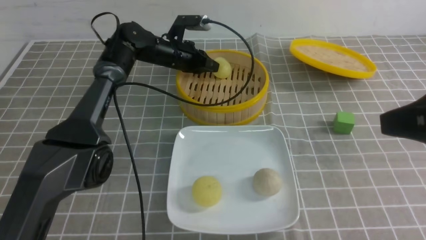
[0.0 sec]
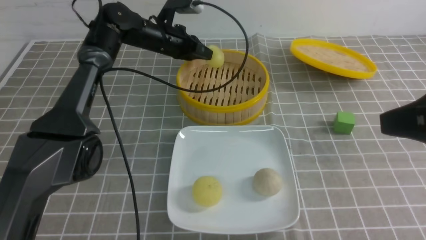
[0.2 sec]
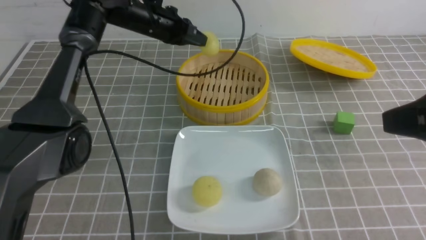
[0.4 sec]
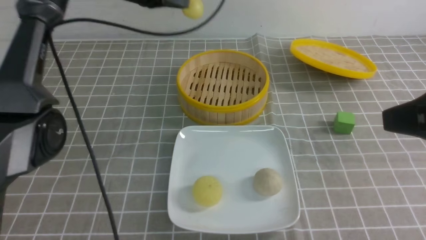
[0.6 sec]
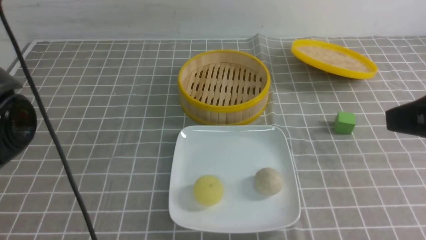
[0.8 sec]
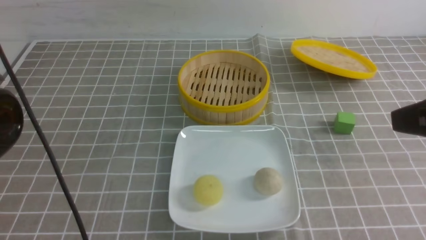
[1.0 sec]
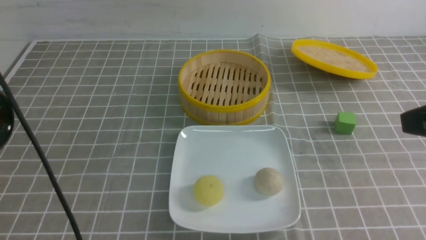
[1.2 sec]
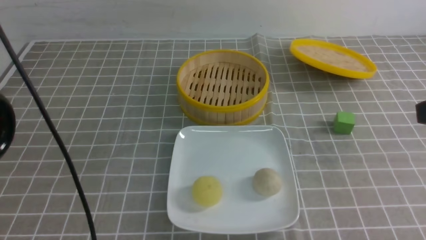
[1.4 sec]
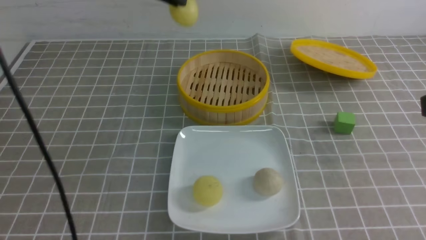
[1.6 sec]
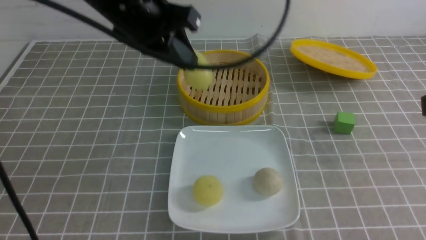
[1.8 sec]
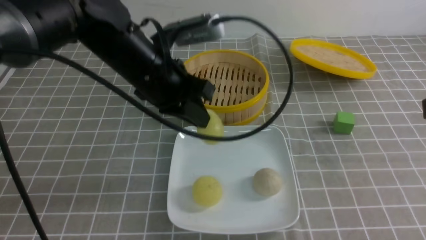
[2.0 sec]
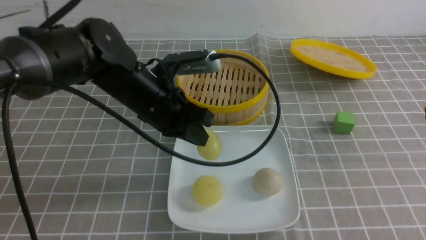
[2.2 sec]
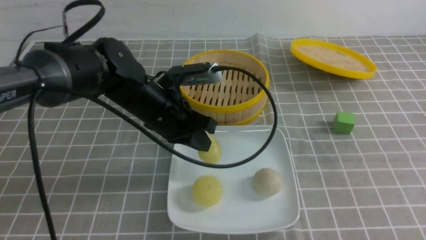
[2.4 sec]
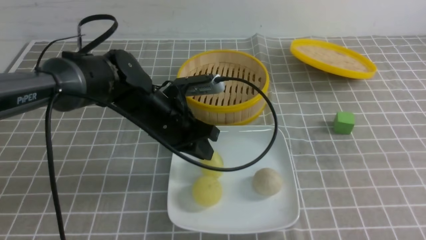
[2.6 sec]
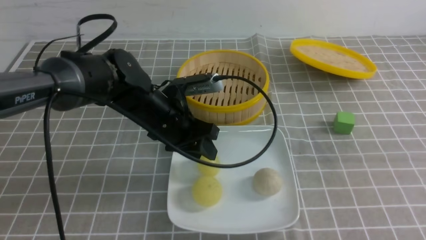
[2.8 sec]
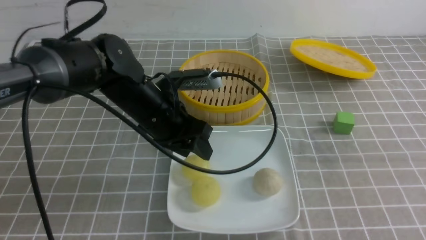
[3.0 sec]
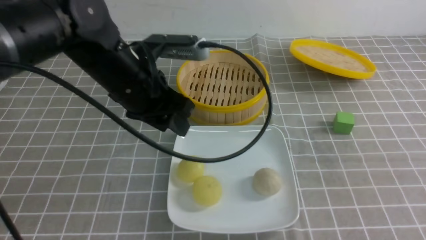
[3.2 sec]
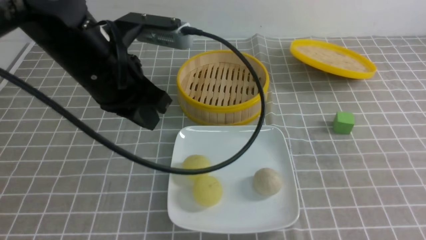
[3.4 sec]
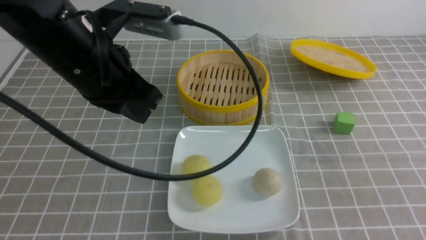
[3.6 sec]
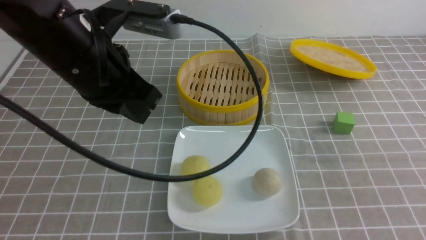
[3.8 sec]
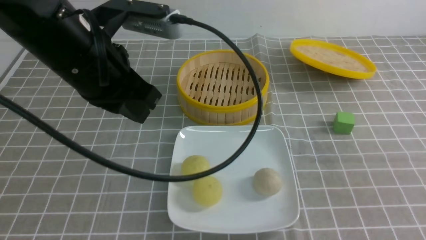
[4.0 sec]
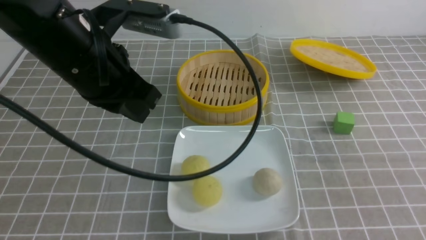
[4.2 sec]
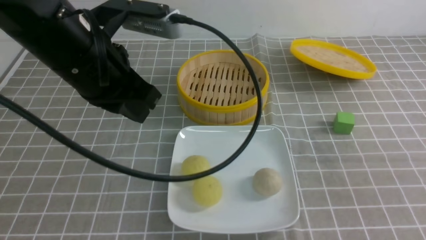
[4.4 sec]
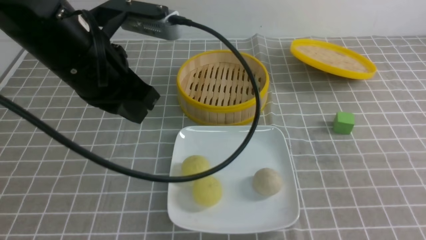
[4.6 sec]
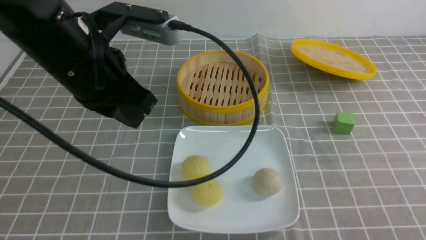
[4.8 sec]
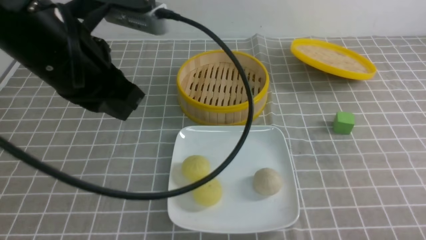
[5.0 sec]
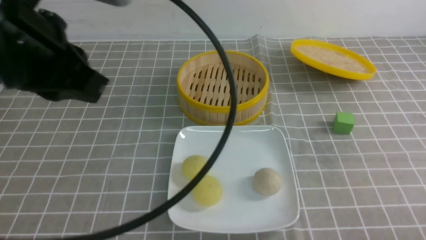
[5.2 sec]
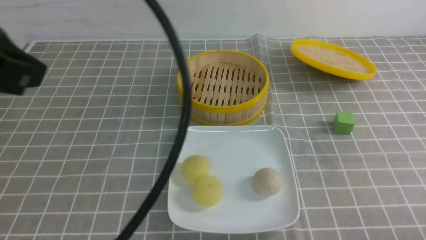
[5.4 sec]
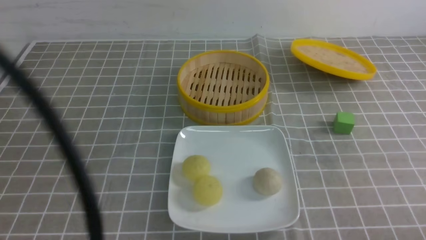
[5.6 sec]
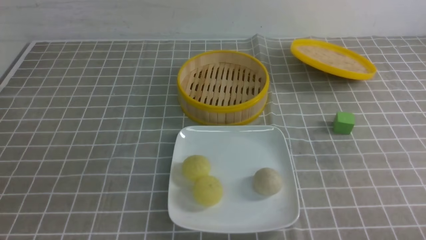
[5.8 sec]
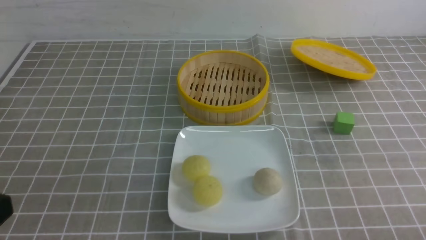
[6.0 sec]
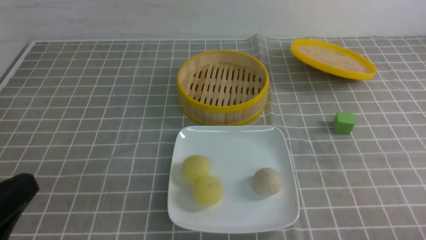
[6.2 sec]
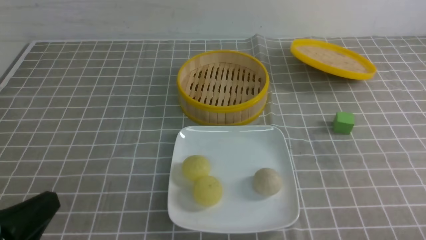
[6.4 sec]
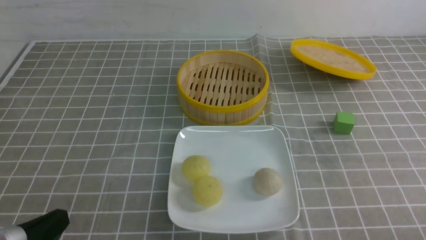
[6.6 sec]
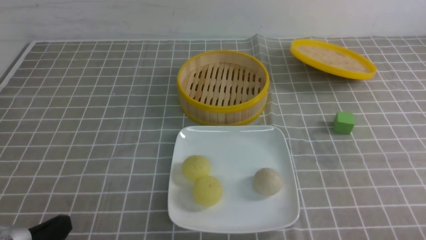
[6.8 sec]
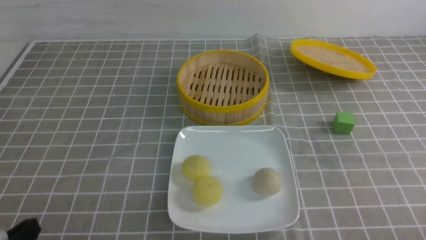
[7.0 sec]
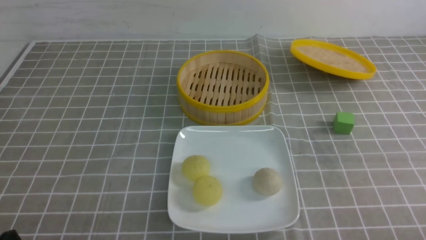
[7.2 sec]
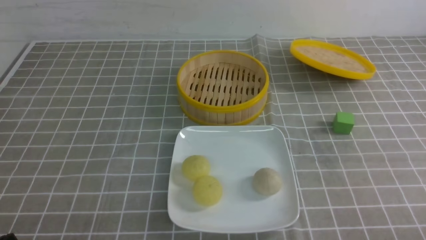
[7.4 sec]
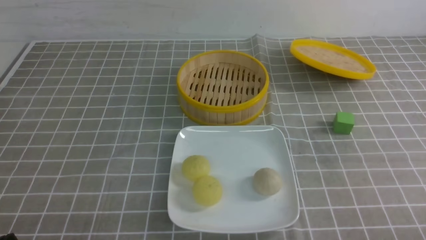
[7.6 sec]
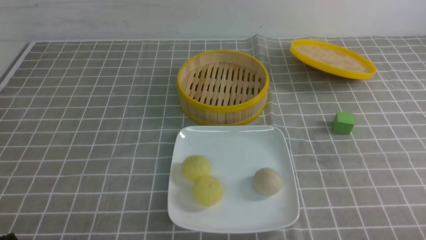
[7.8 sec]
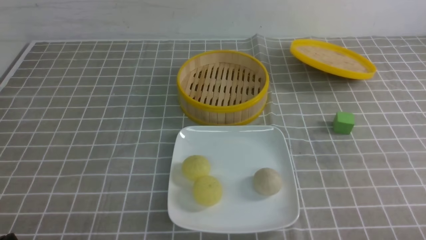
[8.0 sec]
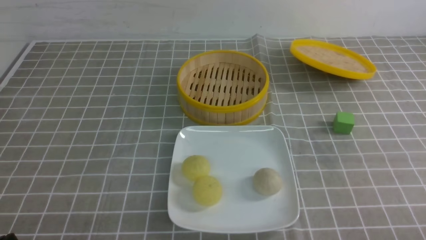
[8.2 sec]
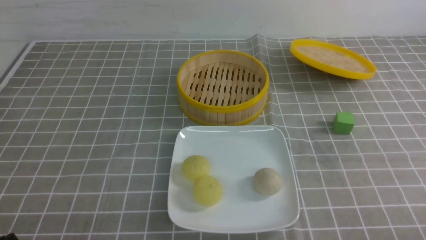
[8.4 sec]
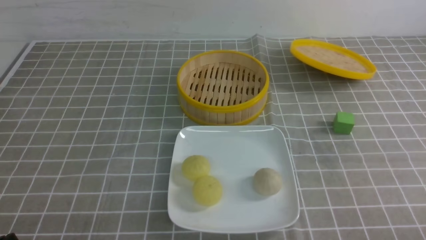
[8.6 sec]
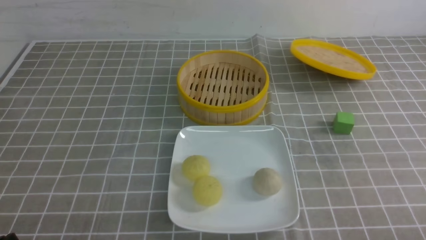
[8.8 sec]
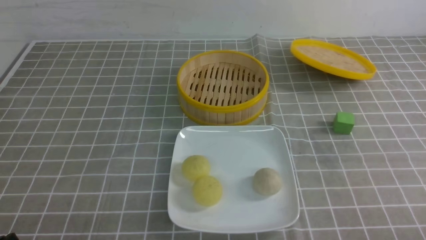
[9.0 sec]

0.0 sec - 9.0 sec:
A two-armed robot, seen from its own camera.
Step, 0.2 sec - 2.8 sec: use the left arm to put the steamed stuffed bun into the plate.
0.0 sec - 1.6 sec: The right gripper closes its fingers. Meanwhile the left gripper is displaced upward and backward by about 30 cm.
1.6 sec - 3.0 sec: The right gripper travels backward by roughly 10 cm. Meanwhile the left gripper heads downward, covering approximately 20 cm, and opens its fingers.
3.0 sec - 4.4 sec: The left gripper travels upward and backward by roughly 15 cm, and closes its fingers; the right gripper is displaced downward by approximately 15 cm.
4.4 sec - 6.0 sec: The right gripper is displaced downward by some 10 cm; the left gripper travels backward and to the left by about 25 cm.
7.6 sec - 9.0 sec: Both grippers stay about where they are.
